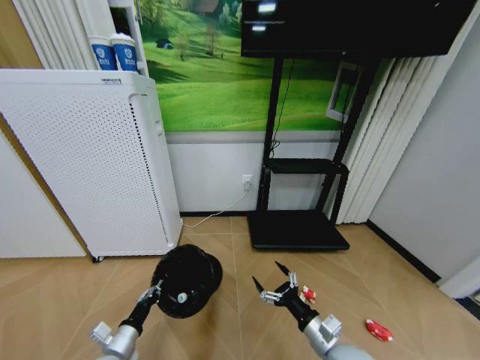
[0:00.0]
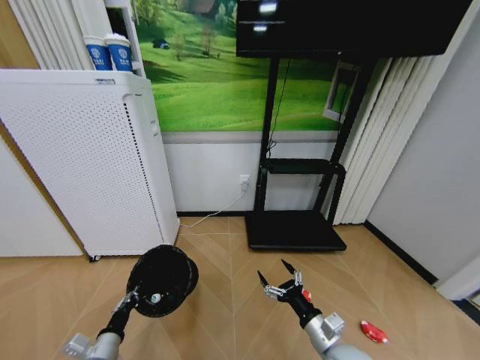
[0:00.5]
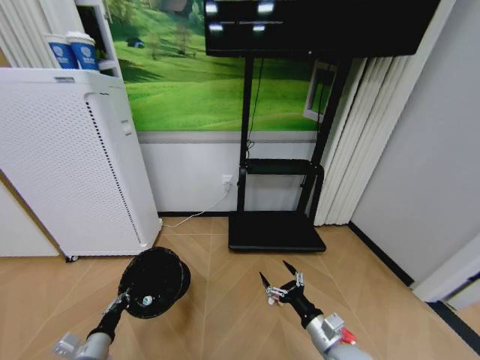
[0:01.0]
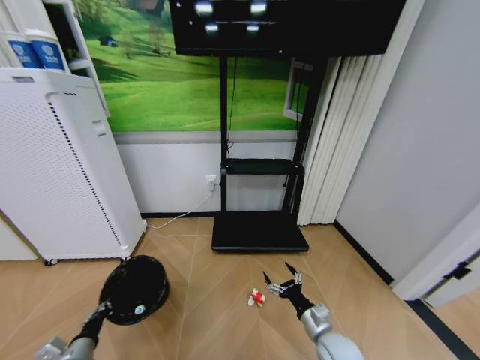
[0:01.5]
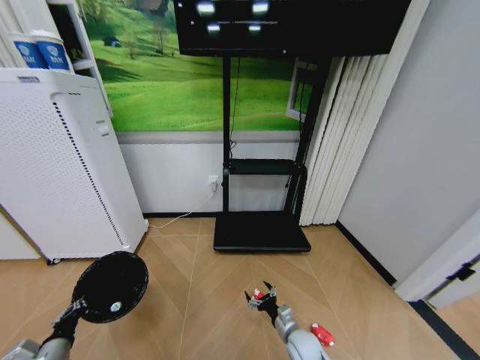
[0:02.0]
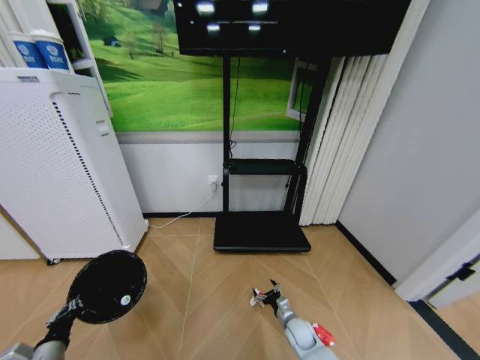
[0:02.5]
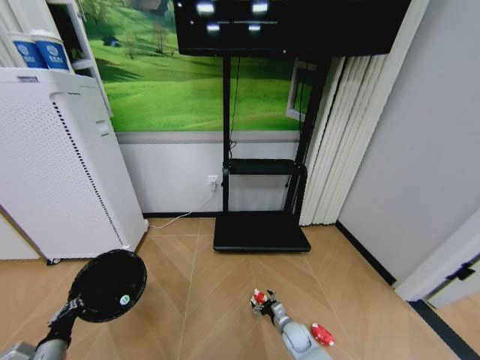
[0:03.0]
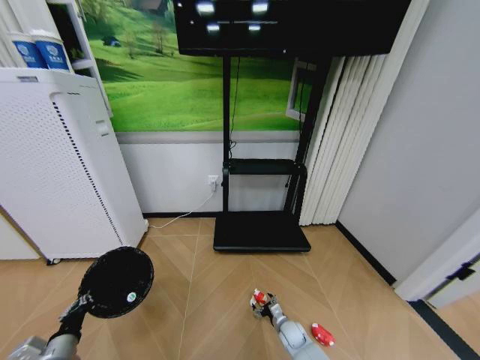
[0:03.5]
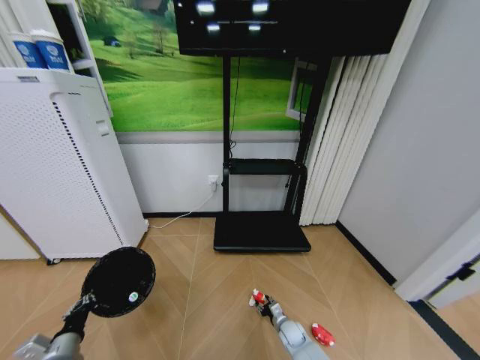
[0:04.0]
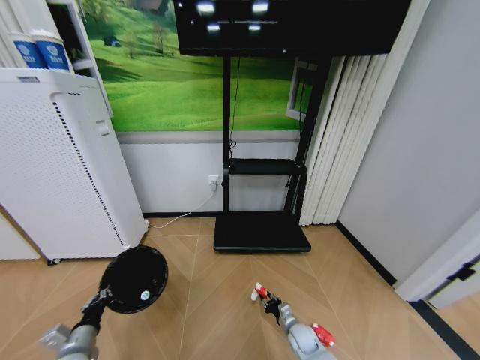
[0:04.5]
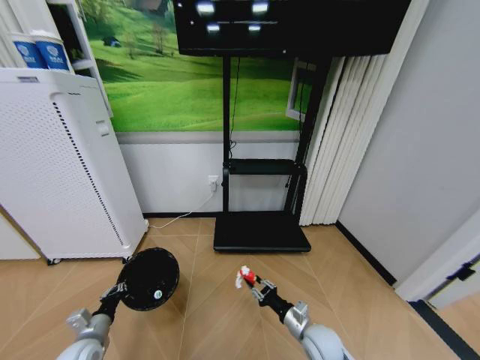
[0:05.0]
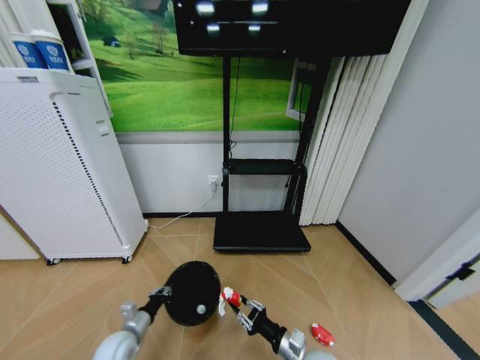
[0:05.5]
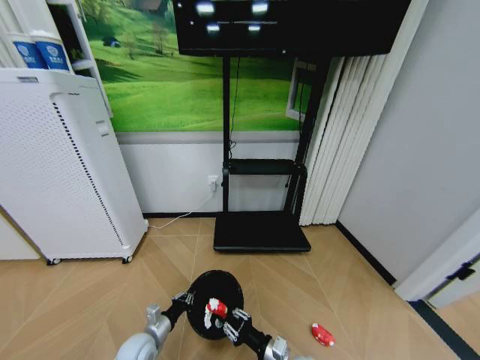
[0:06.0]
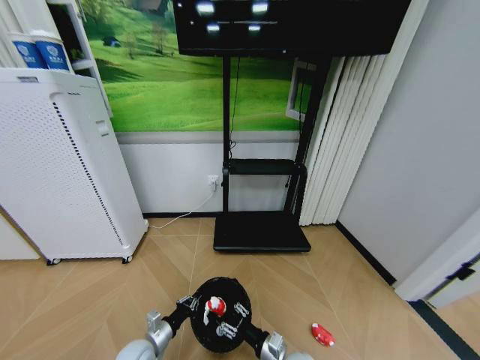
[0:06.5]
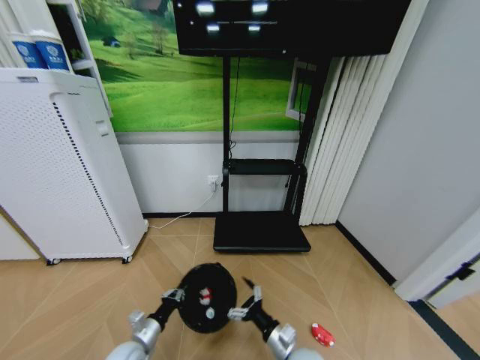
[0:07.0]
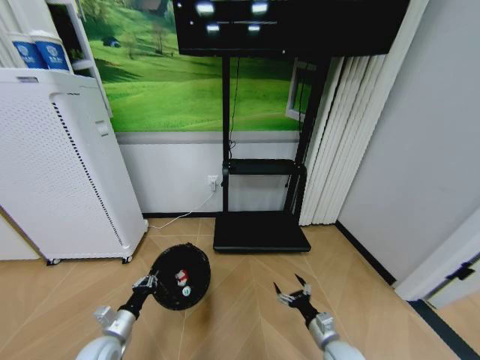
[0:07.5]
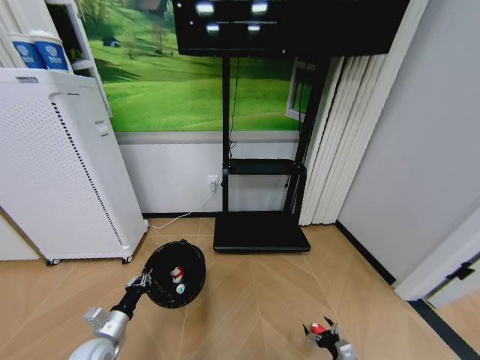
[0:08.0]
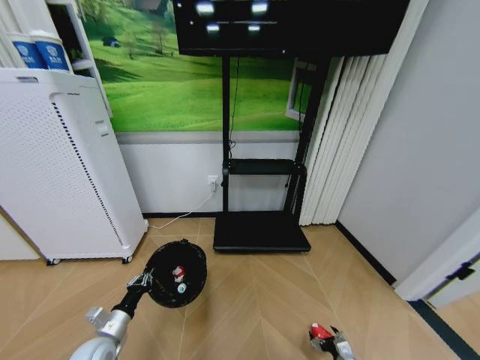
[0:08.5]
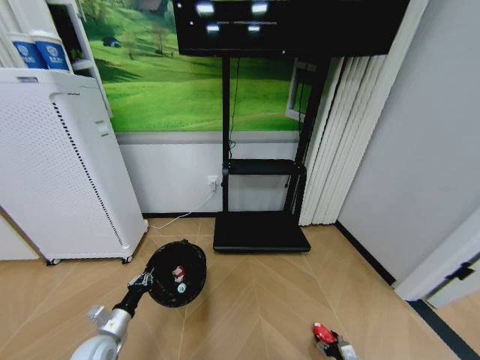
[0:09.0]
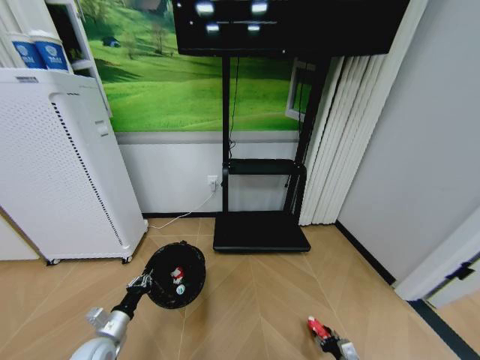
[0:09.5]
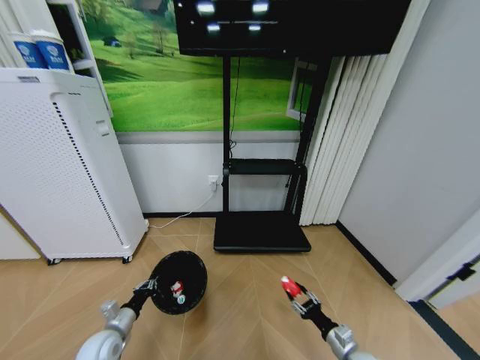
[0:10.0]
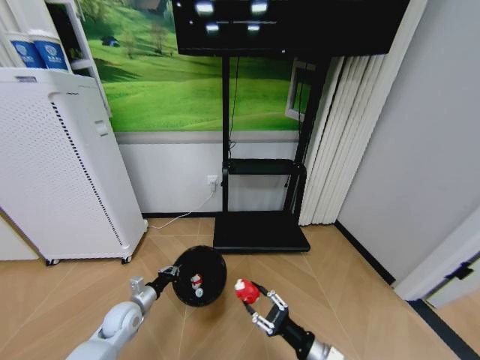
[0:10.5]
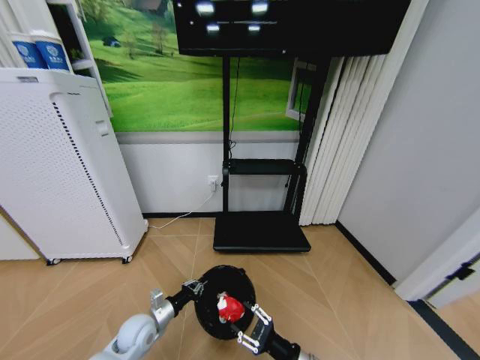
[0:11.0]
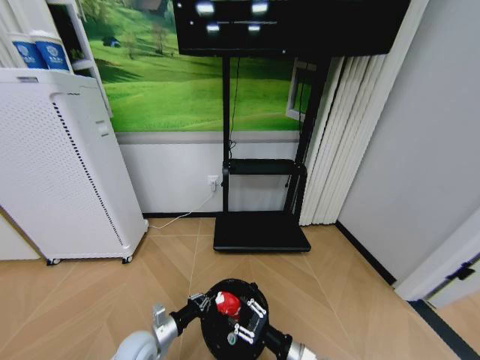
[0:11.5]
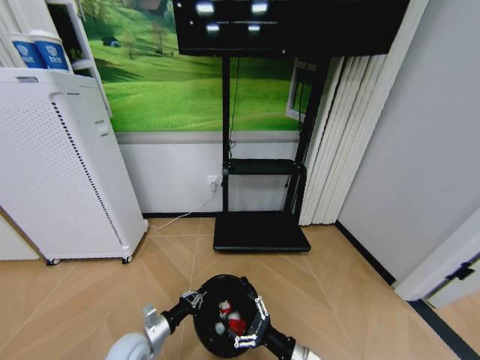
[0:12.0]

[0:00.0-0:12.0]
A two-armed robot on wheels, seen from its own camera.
Task of the whole recording: Pick up the trash bin and place the garbage on the floor into it.
0:00.0 to 0:02.0: The left gripper heads to the left, covering about 10 cm; the right gripper goes about 15 cm downward and forward.
0:02.0 to 0:04.0: The right gripper shifts some 15 cm downward and forward, and closes.
0:04.0 to 0:06.0: The right gripper shifts some 20 cm upward and backward; the left gripper travels to the right, downward and forward by about 20 cm.
0:06.0 to 0:08.0: The left gripper goes approximately 10 cm to the left and upward, while the right gripper shifts roughly 25 cm to the right and downward, and opens up.
0:08.0 to 0:10.0: The right gripper heads upward, covering approximately 10 cm, and closes its fingers.
0:10.0 to 0:12.0: The left gripper goes some 10 cm to the right, while the right gripper is displaced to the left and upward by some 15 cm, and opens its fingers.

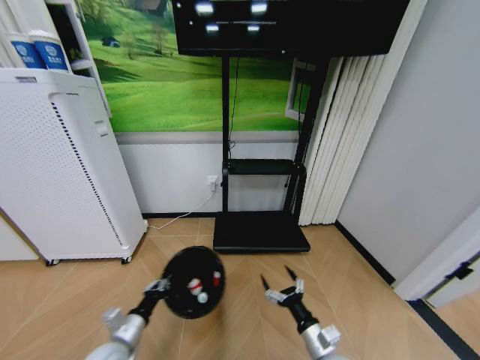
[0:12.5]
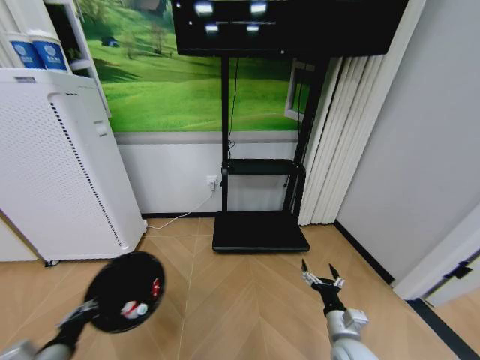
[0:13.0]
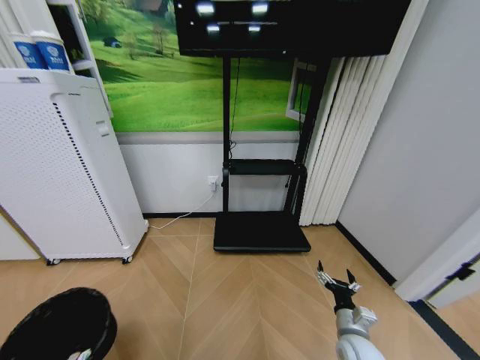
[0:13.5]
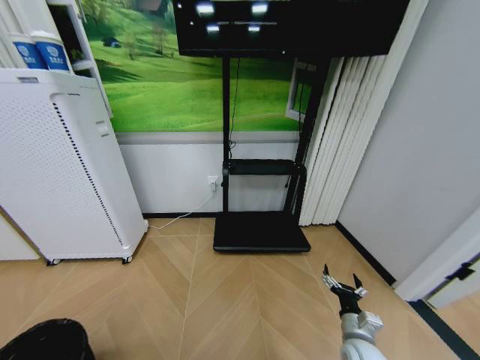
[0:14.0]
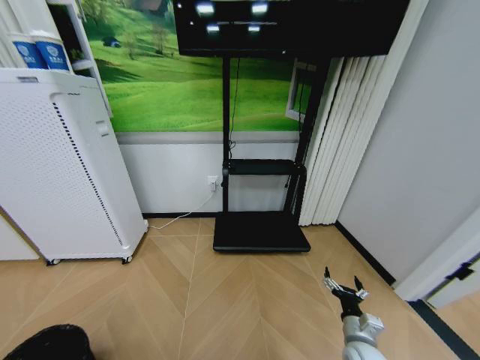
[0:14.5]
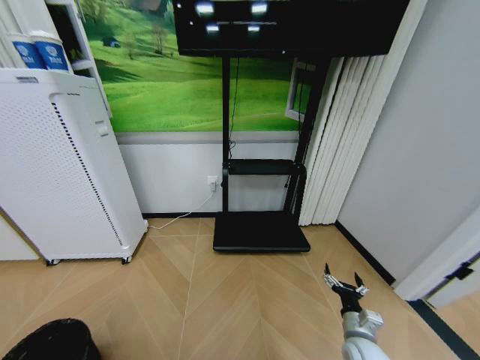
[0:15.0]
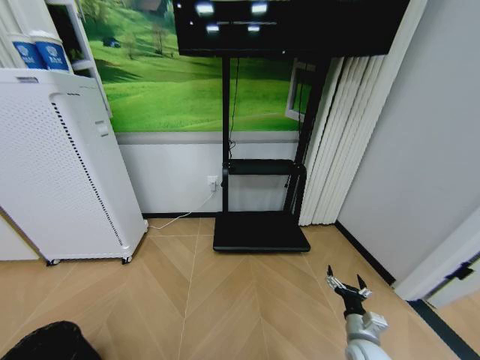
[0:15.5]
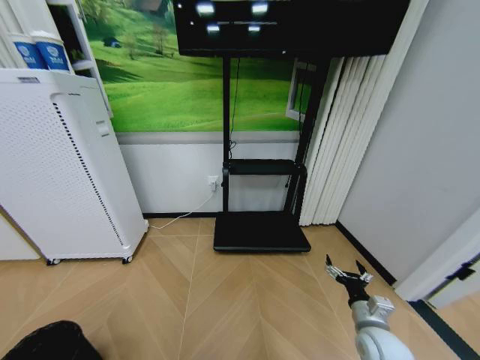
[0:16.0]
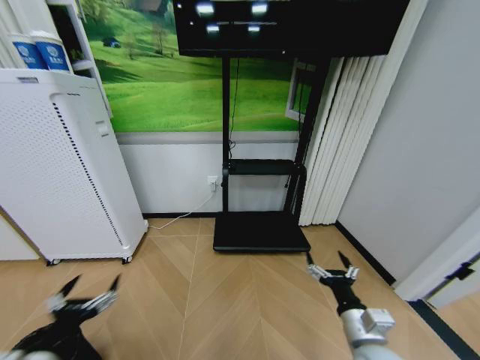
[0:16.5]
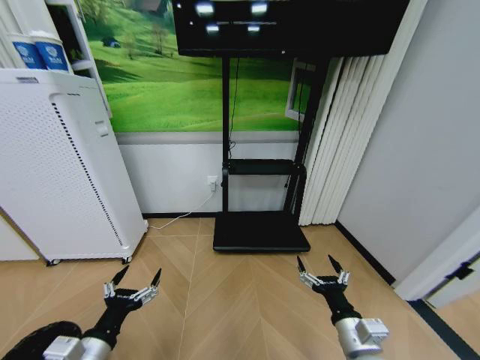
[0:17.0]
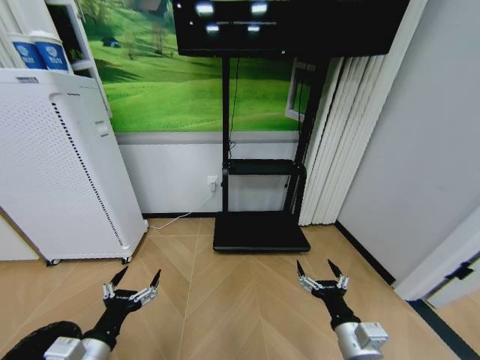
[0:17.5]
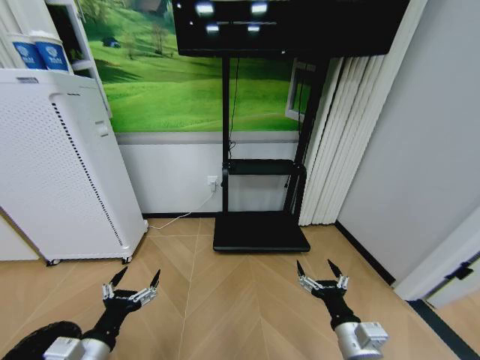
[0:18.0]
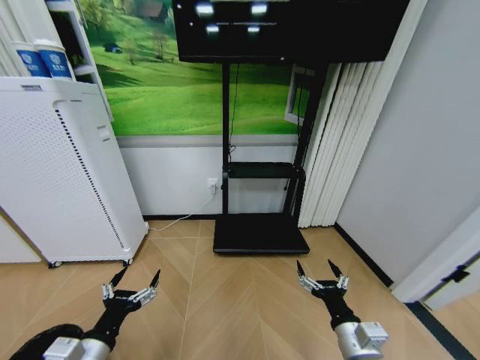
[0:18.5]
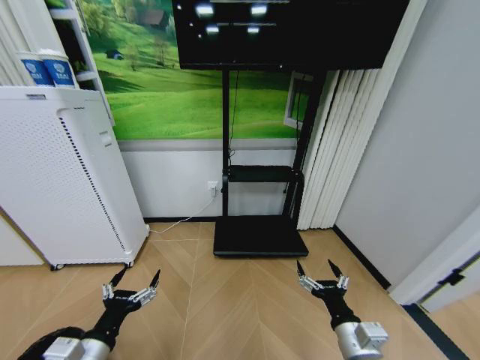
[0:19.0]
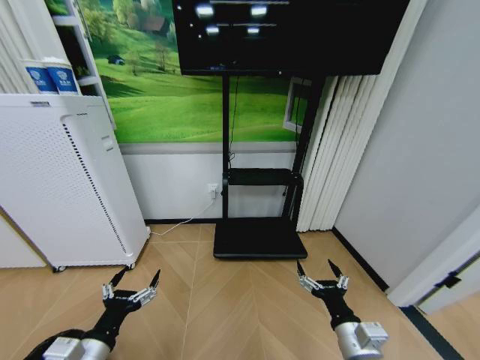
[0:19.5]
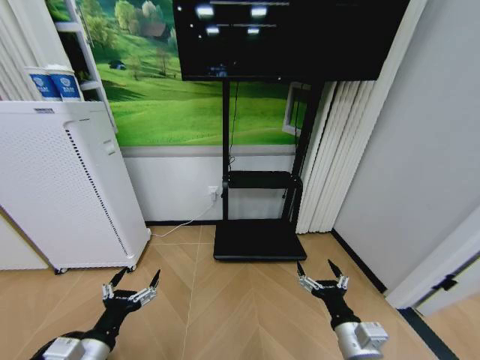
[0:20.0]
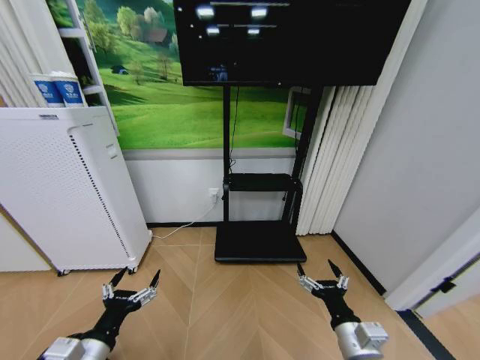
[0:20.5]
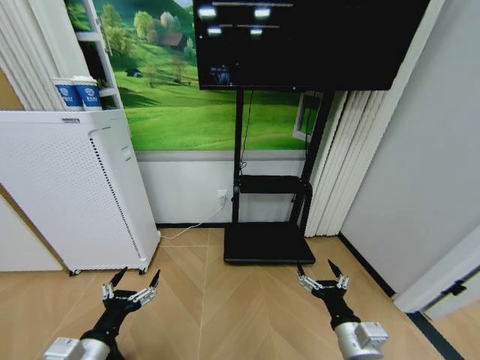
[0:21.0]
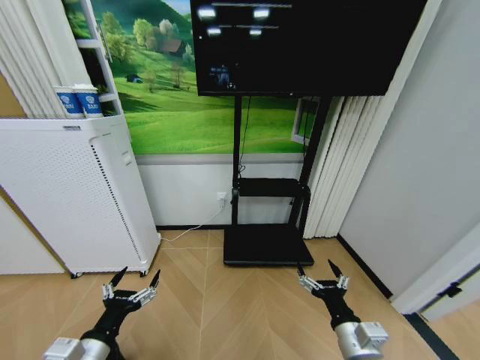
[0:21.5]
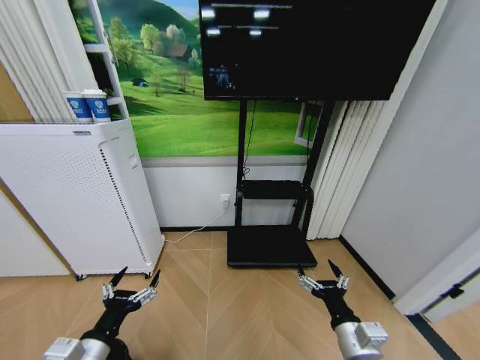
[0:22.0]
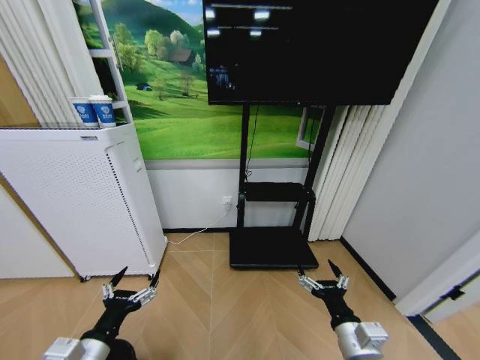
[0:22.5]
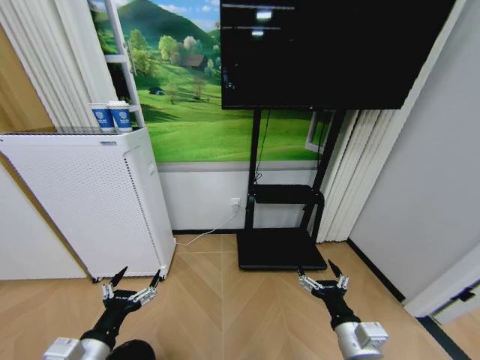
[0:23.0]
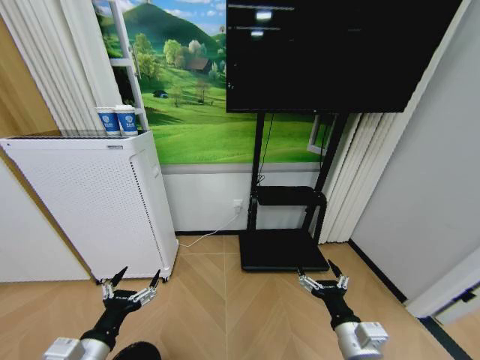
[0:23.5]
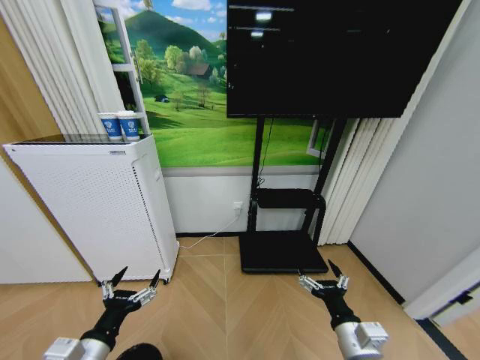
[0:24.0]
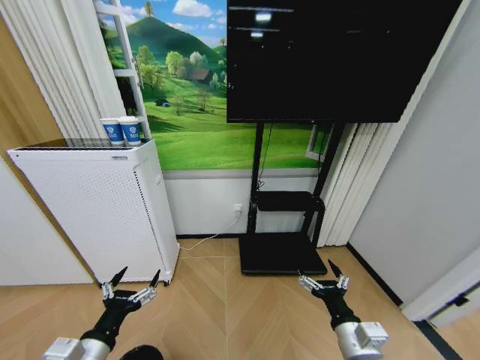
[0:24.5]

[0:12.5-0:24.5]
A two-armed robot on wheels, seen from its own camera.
Task of the whole recording: Pick up the trash bin and place the garbage on the floor into it.
0:12.5 to 0:14.5: The right gripper is displaced to the right by about 10 cm; the left gripper shifts approximately 30 cm backward and to the left.
0:14.5 to 0:16.5: The left gripper goes about 25 cm upward, to the right and forward, and opens, while the right gripper is displaced upward and to the left by roughly 15 cm.
0:16.5 to 0:18.5: The left gripper travels to the right by roughly 5 cm.
